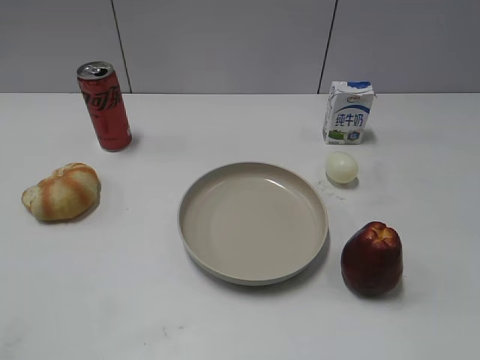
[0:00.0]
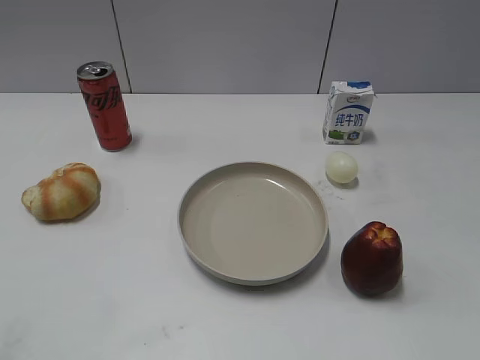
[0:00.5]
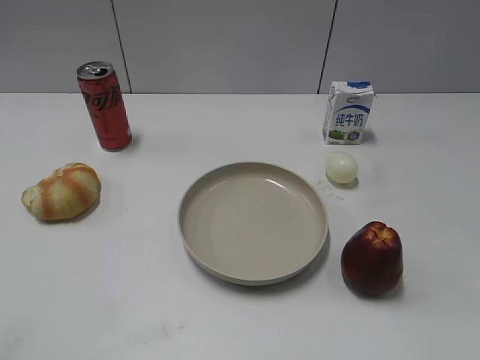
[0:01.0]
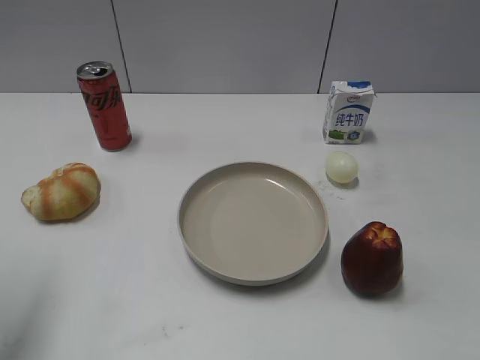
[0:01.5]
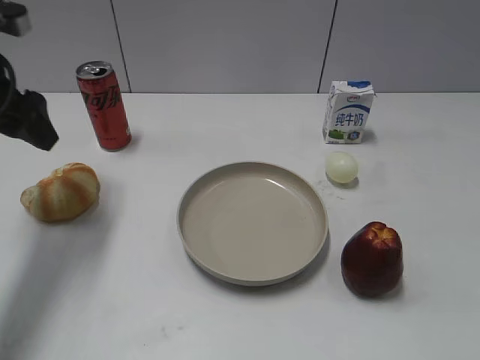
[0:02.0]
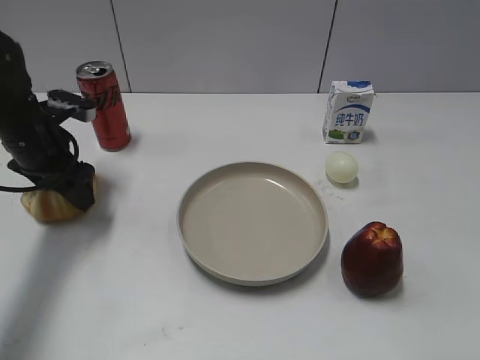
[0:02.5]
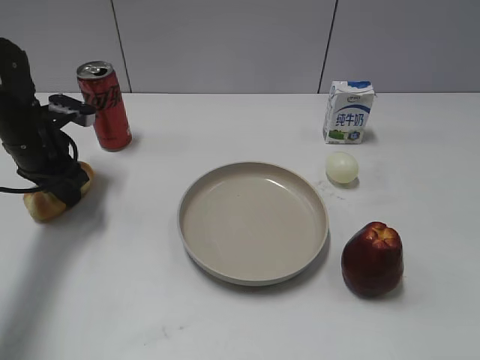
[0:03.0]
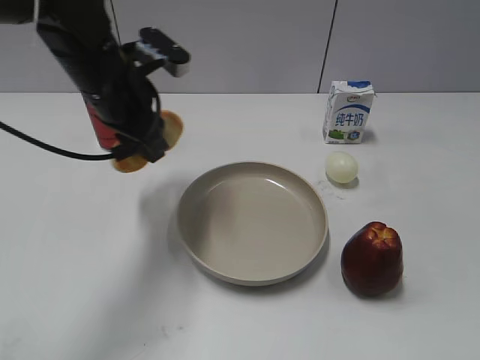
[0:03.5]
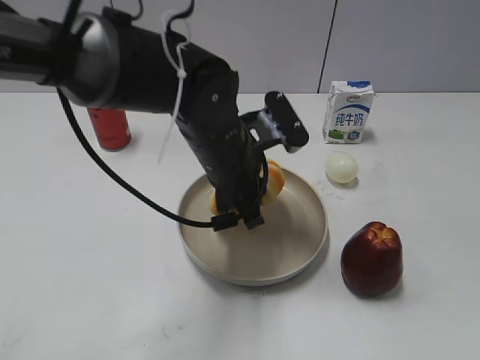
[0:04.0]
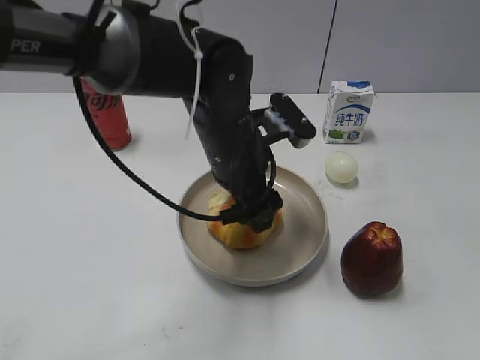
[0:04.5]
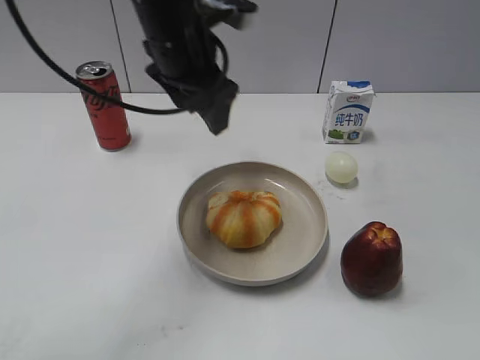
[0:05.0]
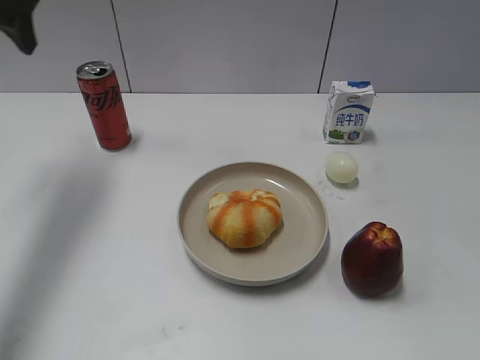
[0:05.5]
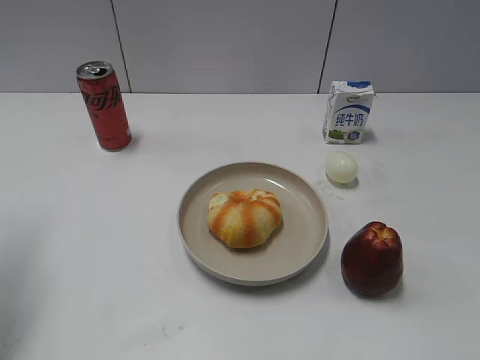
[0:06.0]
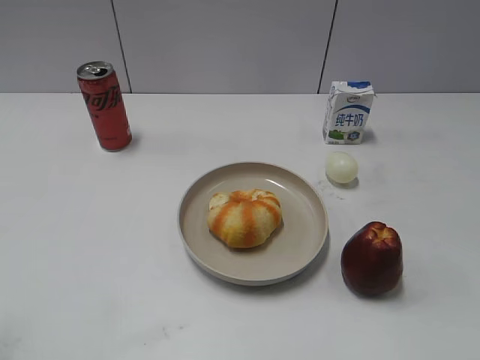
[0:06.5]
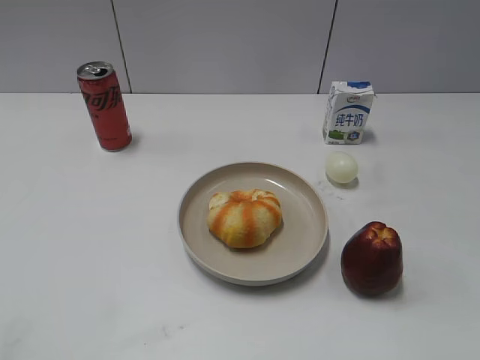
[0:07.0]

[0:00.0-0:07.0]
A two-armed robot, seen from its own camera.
Step, 0:01.0 to 0:02.5: Grasp the round bread with left gripper.
Step, 0:03.5 to 0:04.5: Place the round bread on the plate with left gripper.
0:02.0 to 0:03.5: The left gripper travels to the right by approximately 15 cm, and closes.
0:03.5 to 0:05.0: The left gripper shifts approximately 5 cm to the right, and opens.
0:05.0 to 0:07.0: The left gripper heads backward and to the left, covering some 40 cm.
